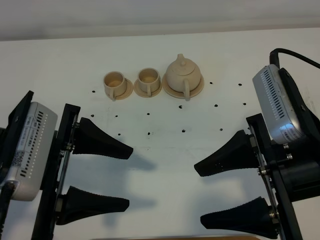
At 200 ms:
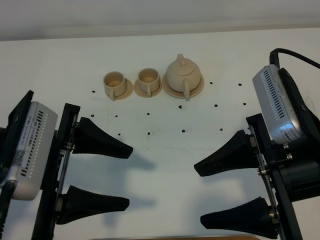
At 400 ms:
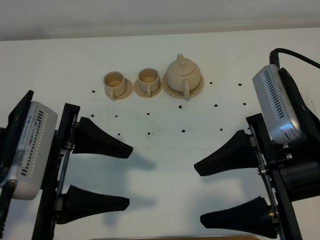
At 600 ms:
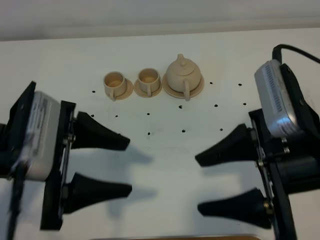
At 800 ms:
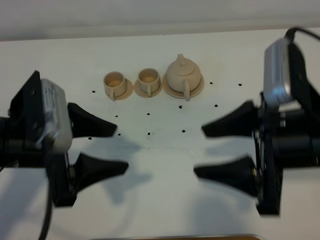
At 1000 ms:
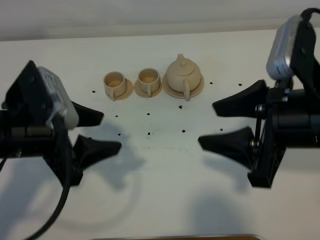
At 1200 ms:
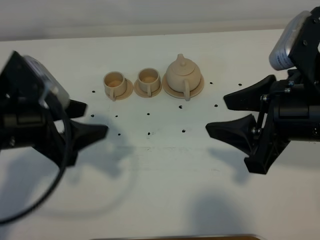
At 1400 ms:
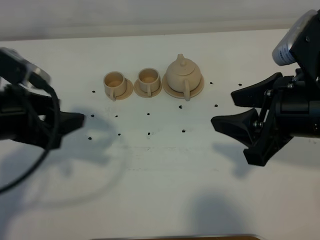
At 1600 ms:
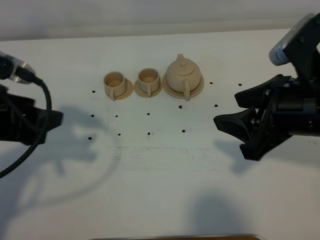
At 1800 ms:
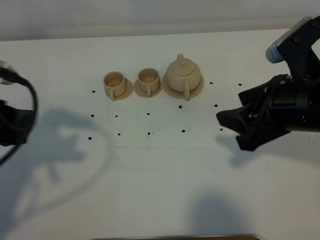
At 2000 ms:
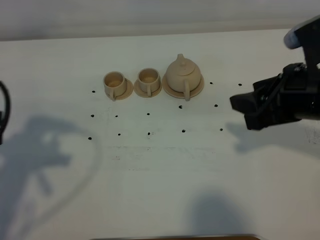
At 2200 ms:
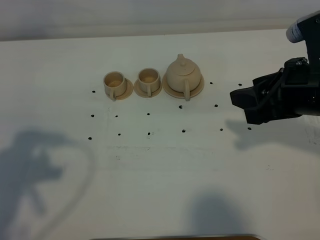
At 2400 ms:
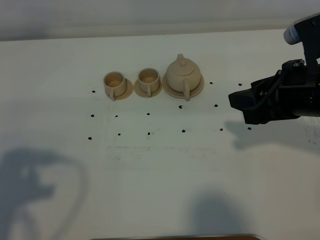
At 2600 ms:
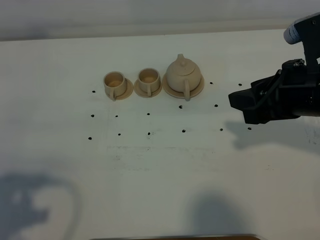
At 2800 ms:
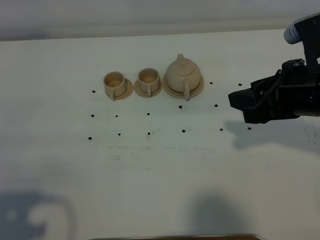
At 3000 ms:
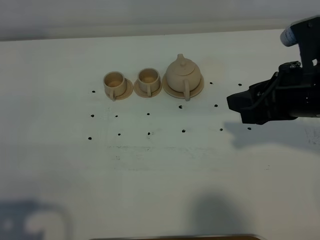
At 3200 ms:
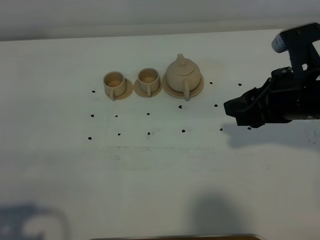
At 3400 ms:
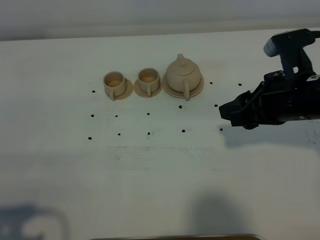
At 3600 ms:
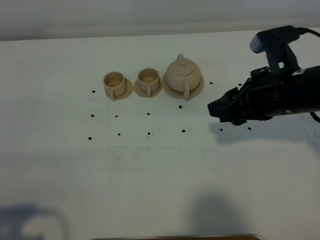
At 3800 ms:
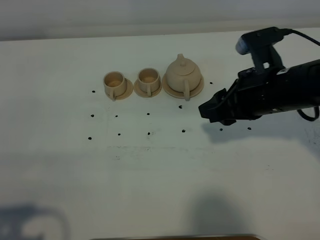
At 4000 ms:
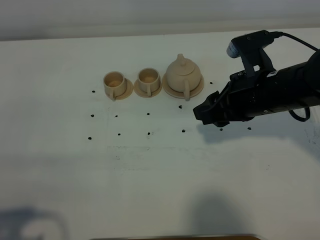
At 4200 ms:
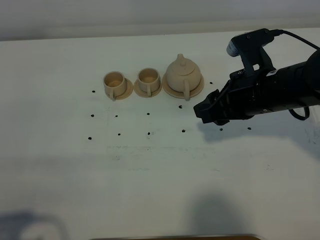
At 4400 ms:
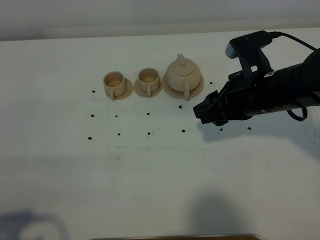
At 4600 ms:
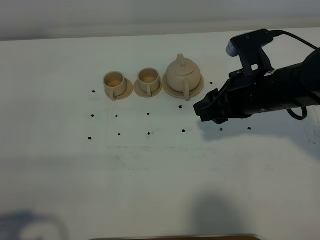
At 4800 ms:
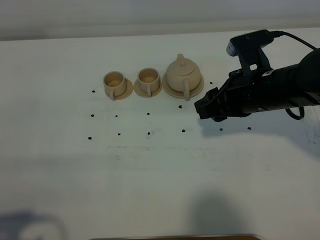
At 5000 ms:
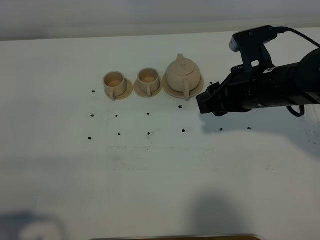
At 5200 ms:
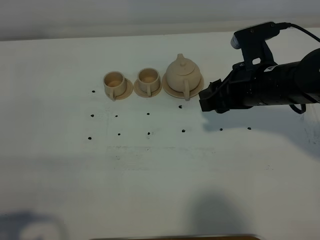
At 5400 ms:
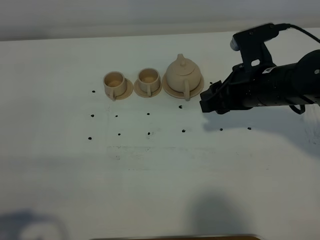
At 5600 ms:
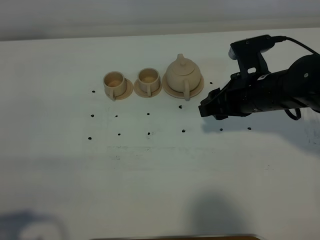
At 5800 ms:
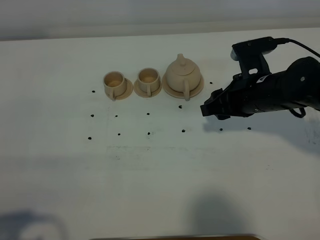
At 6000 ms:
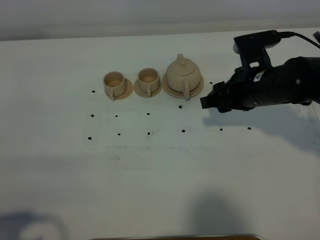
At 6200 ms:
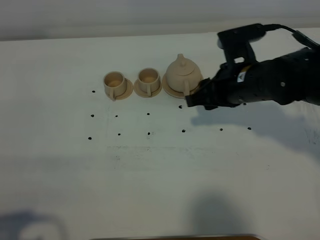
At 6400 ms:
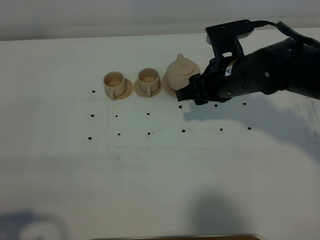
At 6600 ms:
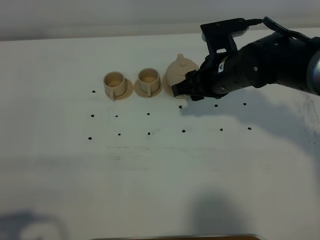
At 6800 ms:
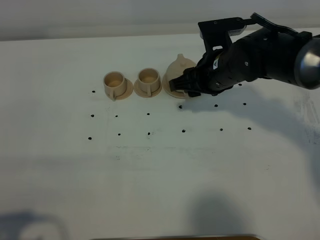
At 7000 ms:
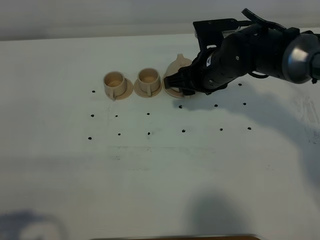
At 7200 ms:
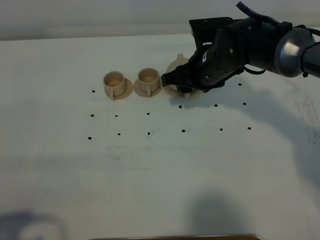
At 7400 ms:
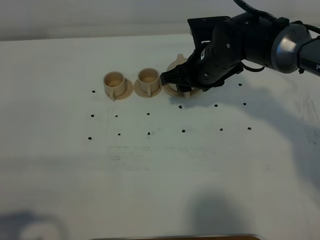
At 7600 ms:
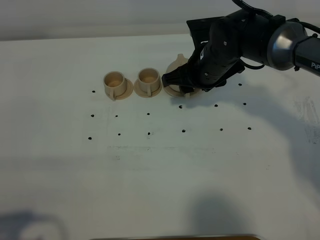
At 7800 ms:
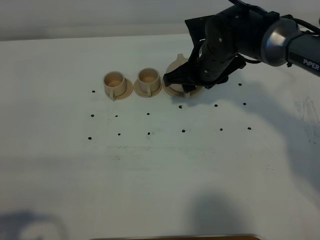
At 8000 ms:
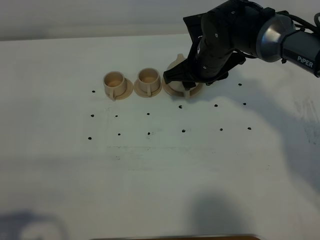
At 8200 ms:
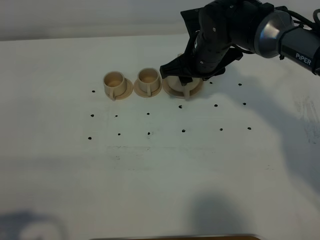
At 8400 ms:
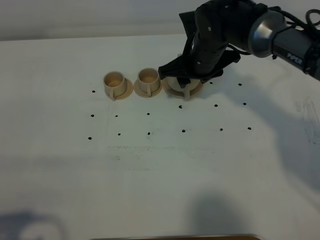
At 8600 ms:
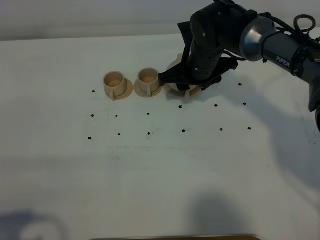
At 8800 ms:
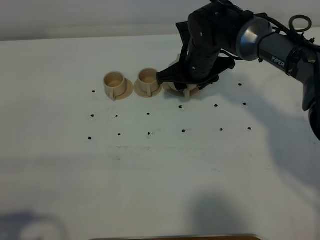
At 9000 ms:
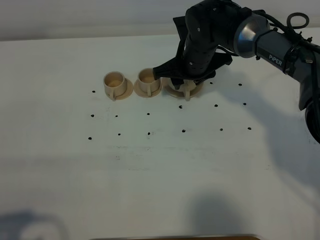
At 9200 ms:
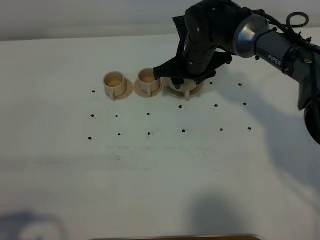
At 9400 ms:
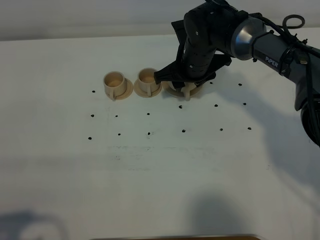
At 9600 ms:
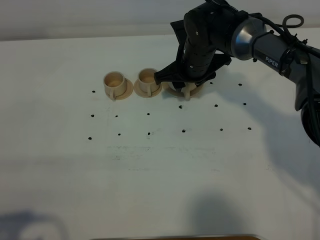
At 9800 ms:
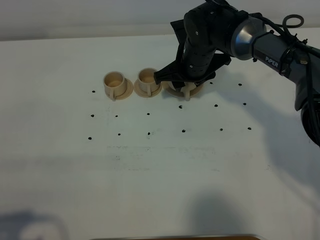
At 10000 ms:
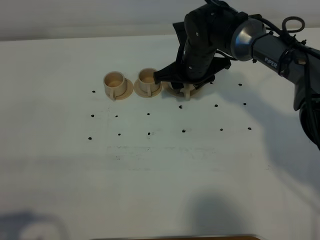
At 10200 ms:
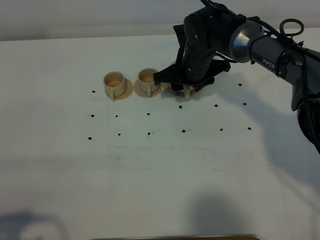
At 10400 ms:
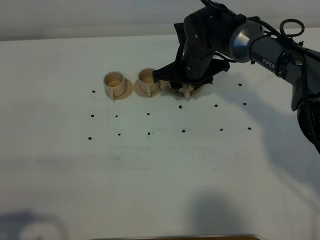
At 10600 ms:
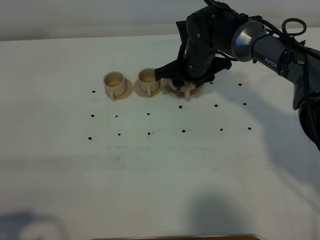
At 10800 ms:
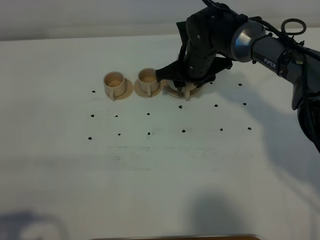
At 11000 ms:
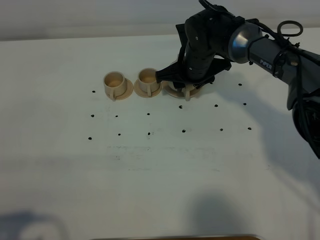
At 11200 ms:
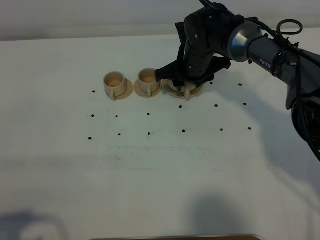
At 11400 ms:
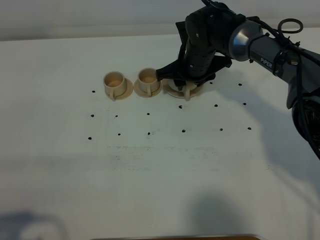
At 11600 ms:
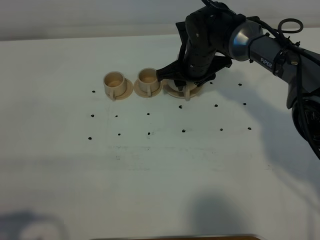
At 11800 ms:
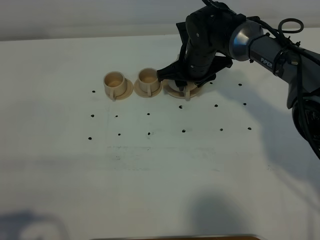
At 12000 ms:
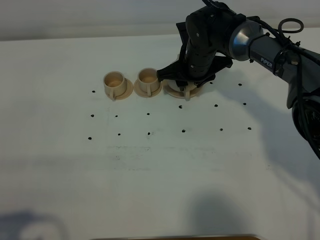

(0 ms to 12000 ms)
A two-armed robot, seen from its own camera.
Task of the whole recording: grasp the brown teapot and pour the tea into the two brown teacups one by one, put the brown teapot back in its original place.
0 ms - 1600 ms: The left gripper moves to the left and forward, roughly 10 cm, while the right gripper is displaced forward by about 5 cm.
1600 ms - 3000 ms: The left gripper shifts some 20 cm backward, and closes up.
3000 ms - 4400 ms: The right gripper shifts by about 10 cm.
4400 ms - 6000 ms: The grippers stay close to where they were, moving slightly.
6000 ms - 7600 ms: The right gripper goes some 10 cm forward and to the left.
7600 ms - 10400 ms: The grippers stay close to where they were, moving slightly.
10400 ms - 12000 ms: The two grippers keep their place.

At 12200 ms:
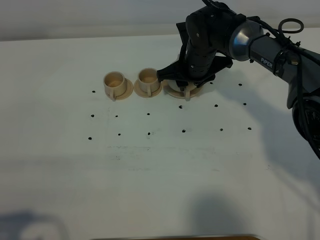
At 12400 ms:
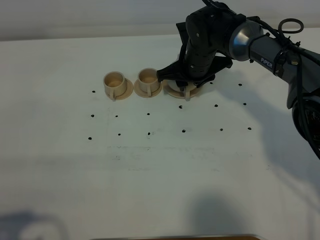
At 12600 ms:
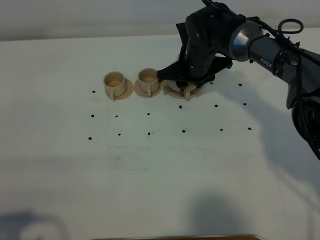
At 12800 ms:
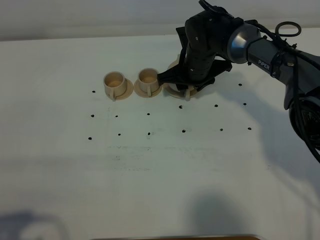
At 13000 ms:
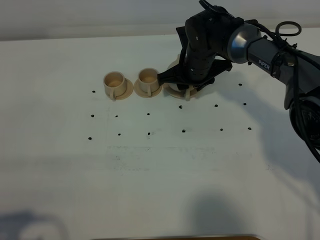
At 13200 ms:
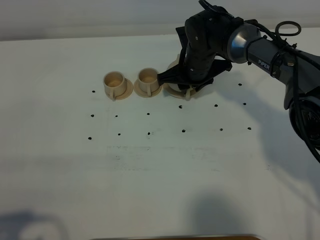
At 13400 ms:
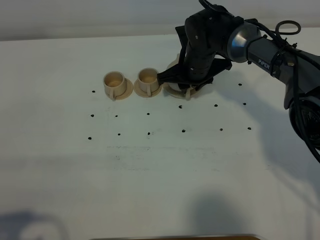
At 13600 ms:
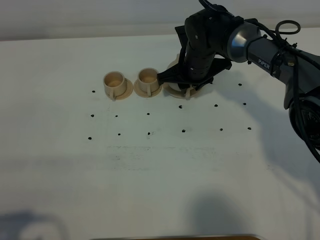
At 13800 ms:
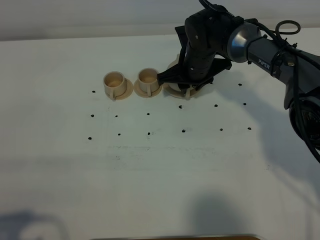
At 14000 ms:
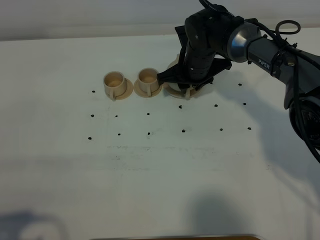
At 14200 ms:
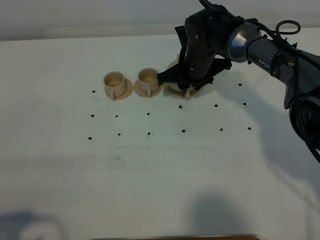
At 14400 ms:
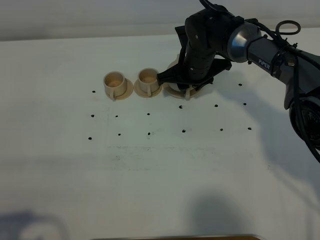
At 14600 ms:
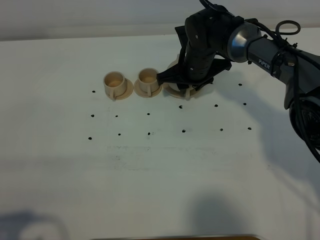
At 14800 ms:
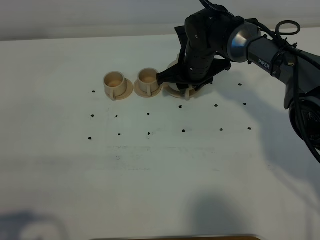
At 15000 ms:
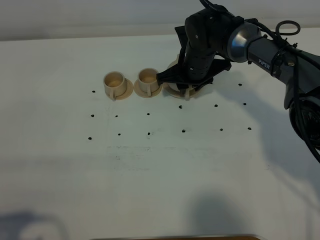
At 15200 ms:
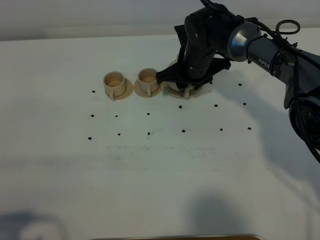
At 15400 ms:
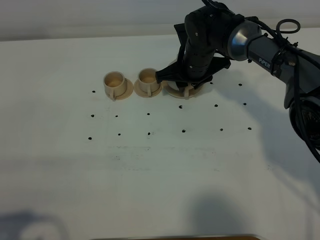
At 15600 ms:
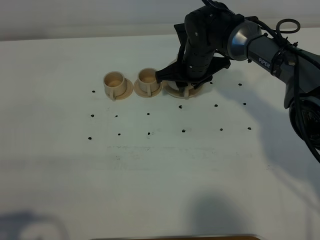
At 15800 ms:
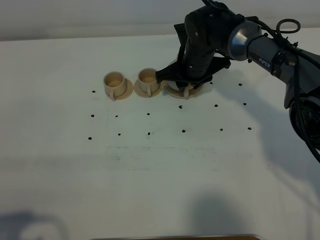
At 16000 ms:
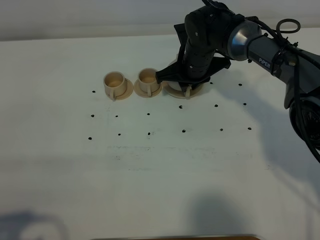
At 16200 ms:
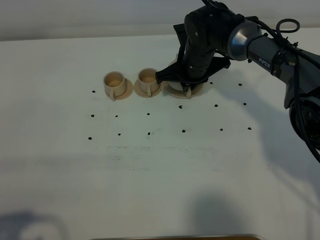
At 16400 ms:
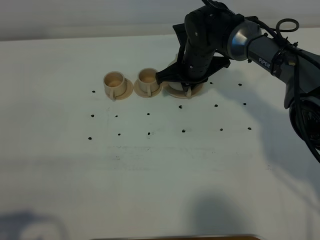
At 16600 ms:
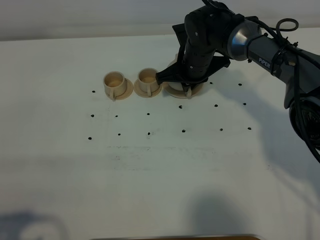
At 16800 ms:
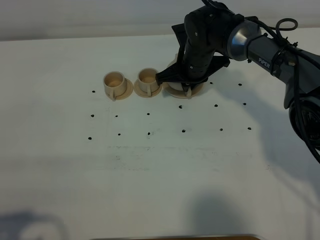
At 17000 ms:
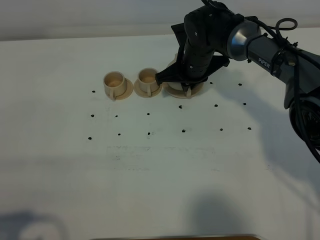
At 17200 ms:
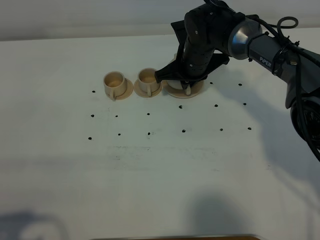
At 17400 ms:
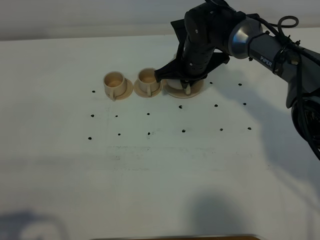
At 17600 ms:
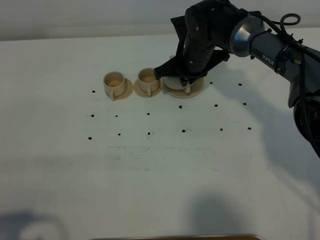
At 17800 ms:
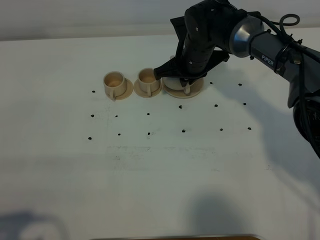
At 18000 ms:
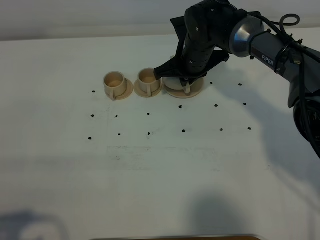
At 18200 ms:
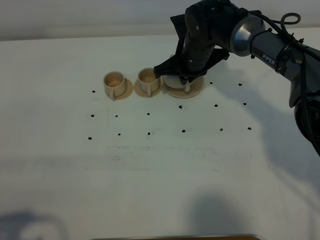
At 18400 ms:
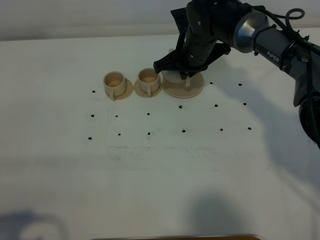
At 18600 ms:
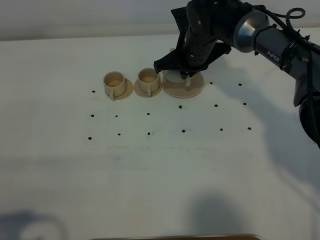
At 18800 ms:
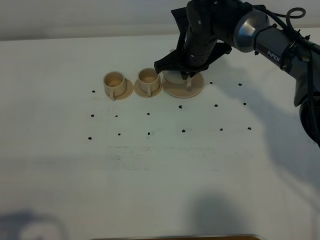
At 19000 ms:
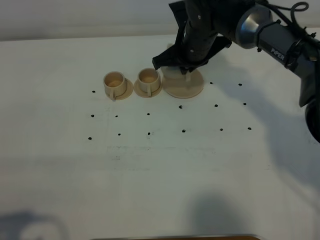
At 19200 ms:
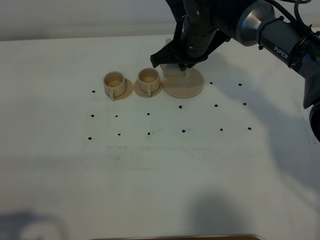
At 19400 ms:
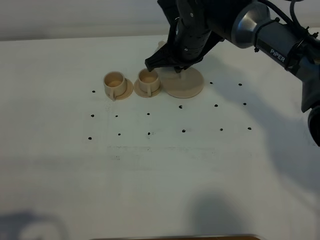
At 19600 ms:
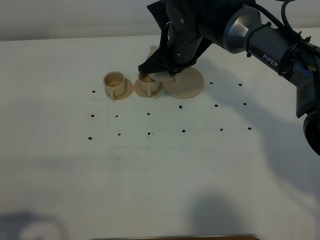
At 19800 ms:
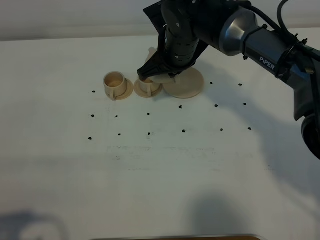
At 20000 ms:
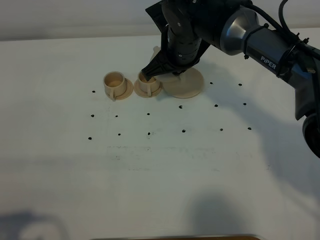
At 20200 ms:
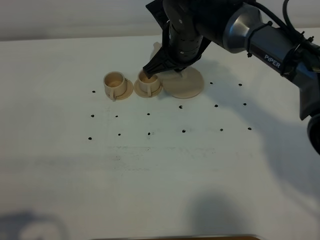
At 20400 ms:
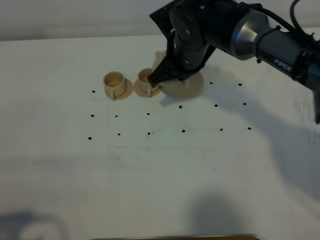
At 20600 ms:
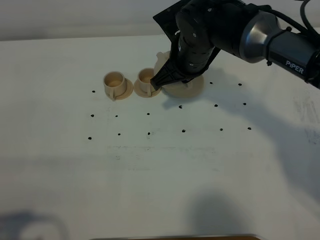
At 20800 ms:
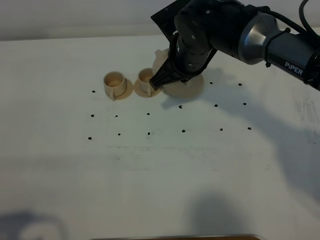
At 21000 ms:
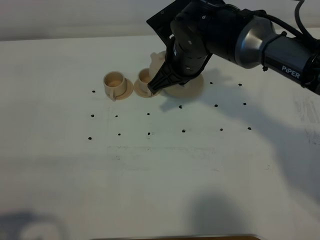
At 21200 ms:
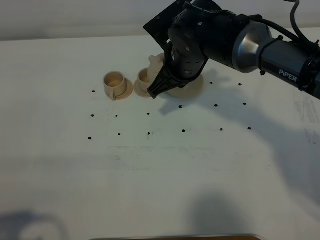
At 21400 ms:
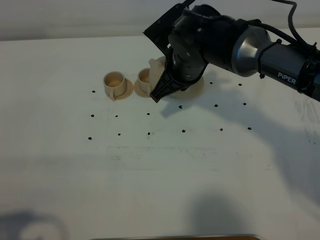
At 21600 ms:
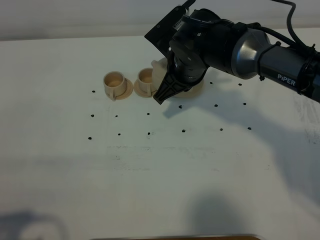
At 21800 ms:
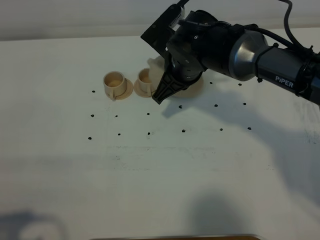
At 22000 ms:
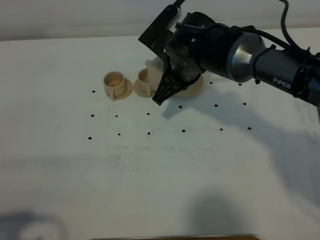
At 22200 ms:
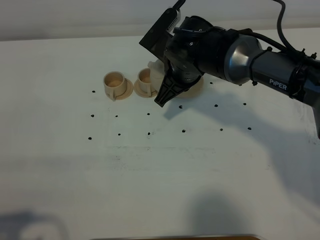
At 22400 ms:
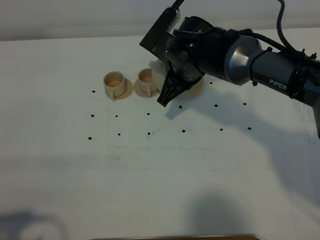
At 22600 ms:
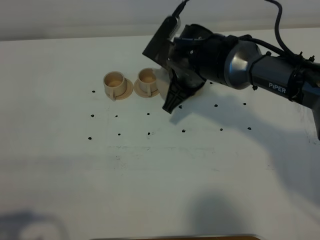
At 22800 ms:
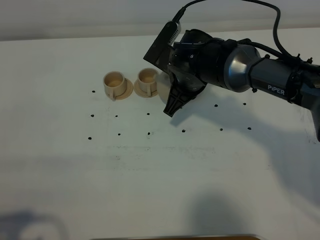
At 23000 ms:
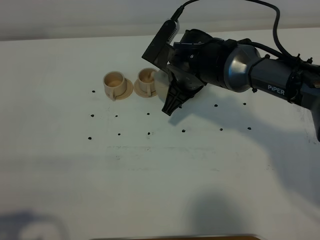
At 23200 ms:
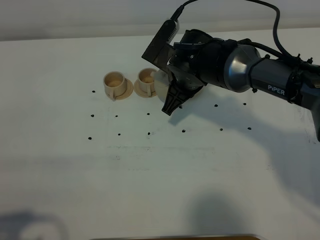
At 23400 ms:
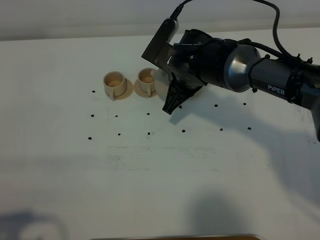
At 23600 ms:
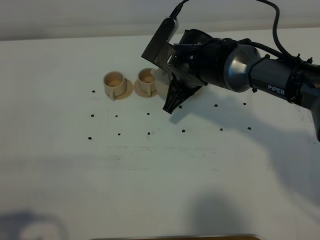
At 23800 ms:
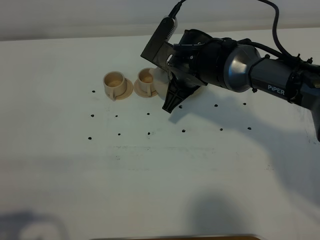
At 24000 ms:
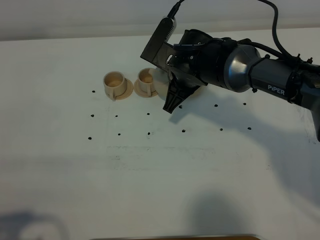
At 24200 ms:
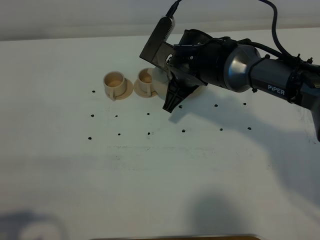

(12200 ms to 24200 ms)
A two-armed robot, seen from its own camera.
Task of the whole recording: grasp the brown teapot and pour the tea into the two brown teacups one by one, put the brown teapot back in its original place.
Step, 12200 ms - 18400 ms: Pick up the teapot with the right gripper.
12200 ms - 15200 ms: The two grippers keep their place.
15200 ms - 16600 ms: The right gripper closes.
16600 ms - 18200 ms: The grippers stay close to where they were, moving slightly.
18200 ms - 19800 ms: The right gripper moves upward, about 5 cm.
19800 ms - 21200 ms: The grippers make only small movements.
21200 ms - 22600 ms: The grippers move only a little.
22600 ms - 24200 ms: The grippers stay close to where they were, moving slightly.
